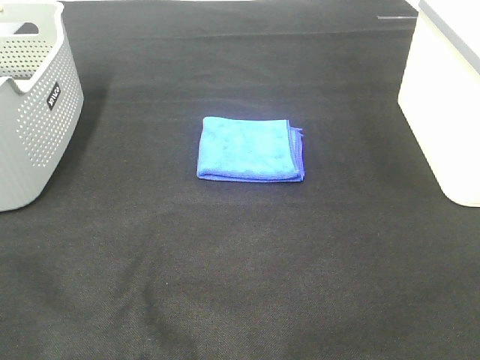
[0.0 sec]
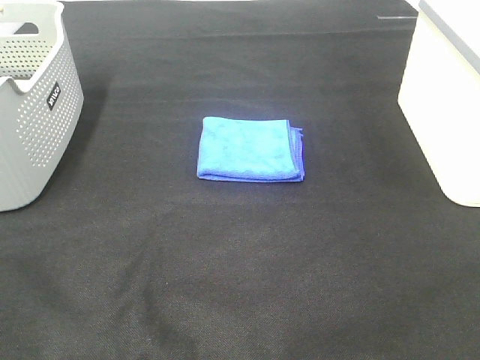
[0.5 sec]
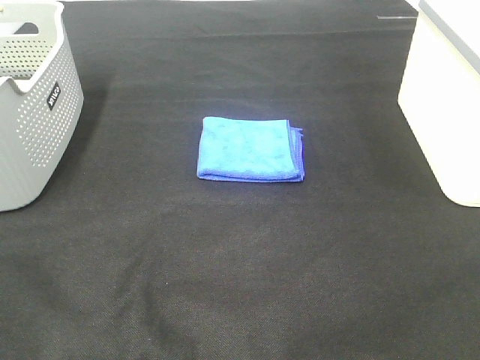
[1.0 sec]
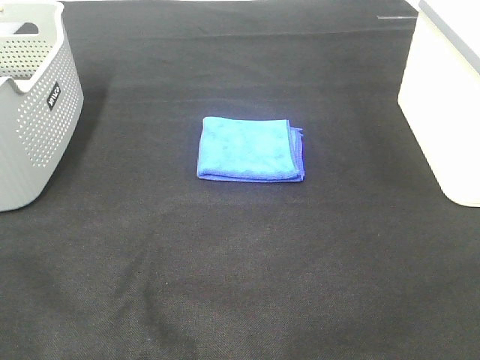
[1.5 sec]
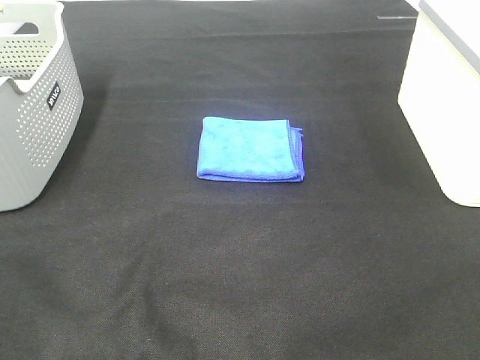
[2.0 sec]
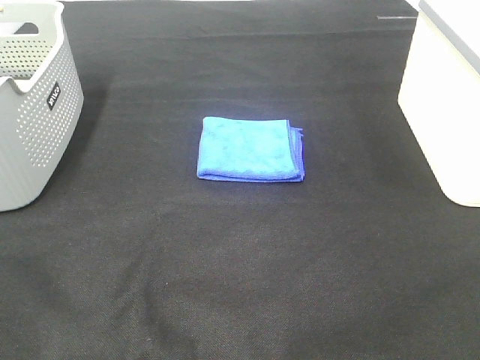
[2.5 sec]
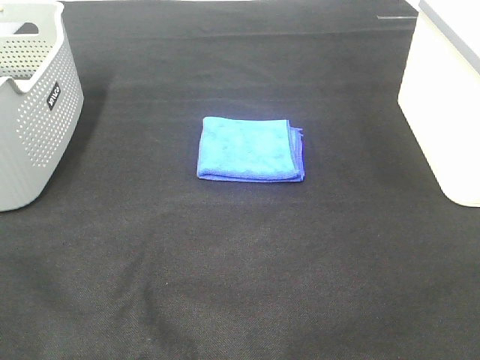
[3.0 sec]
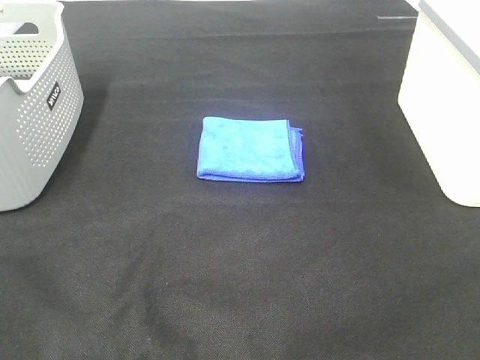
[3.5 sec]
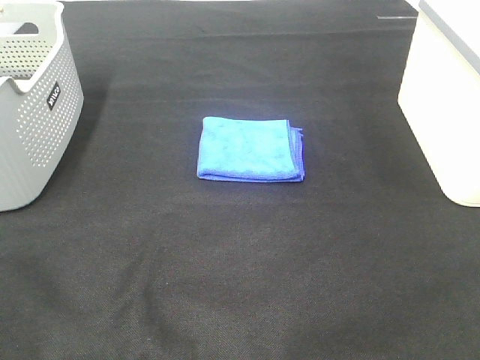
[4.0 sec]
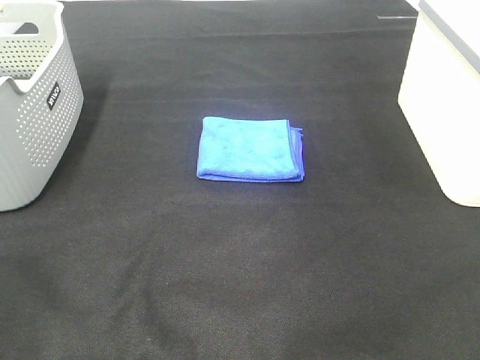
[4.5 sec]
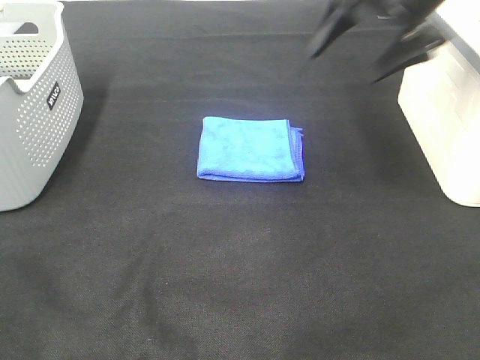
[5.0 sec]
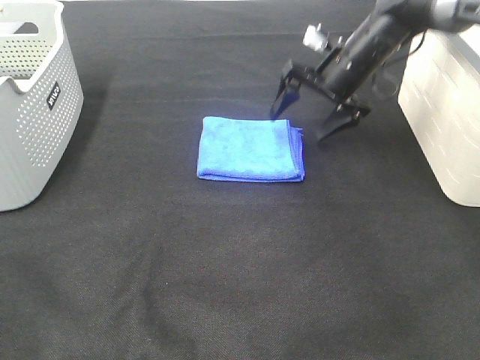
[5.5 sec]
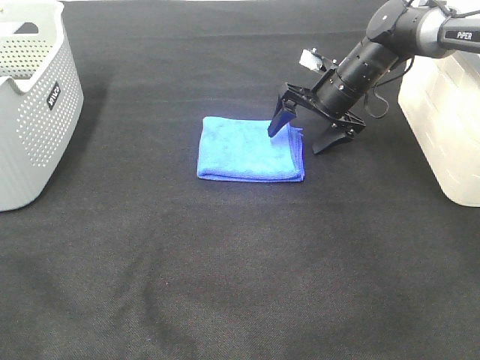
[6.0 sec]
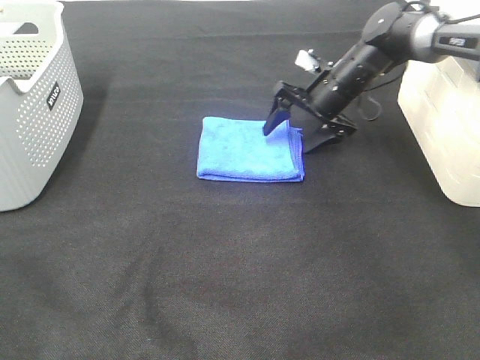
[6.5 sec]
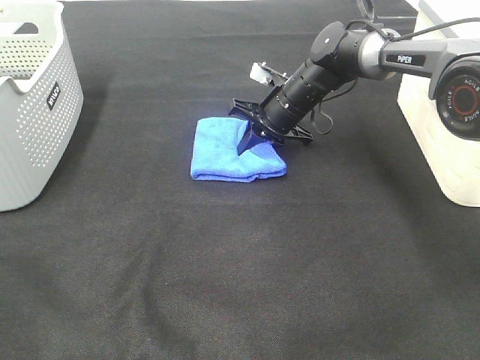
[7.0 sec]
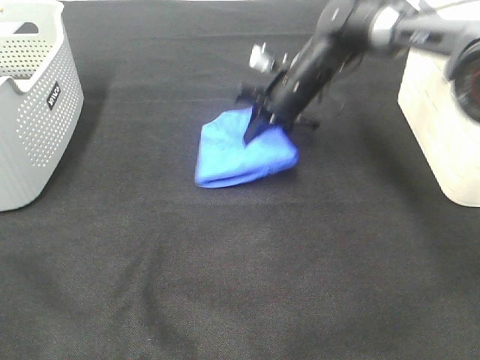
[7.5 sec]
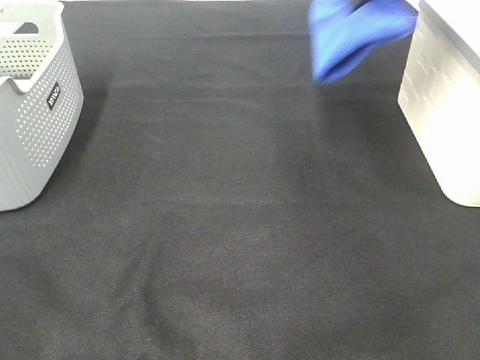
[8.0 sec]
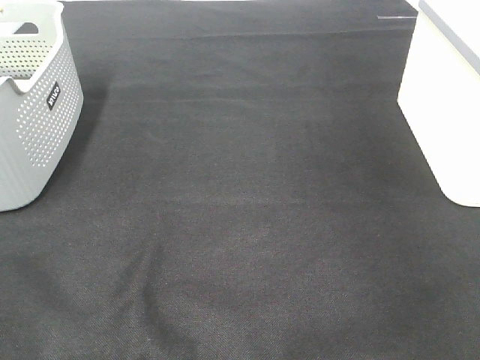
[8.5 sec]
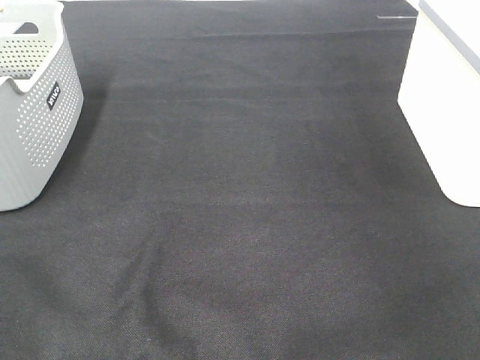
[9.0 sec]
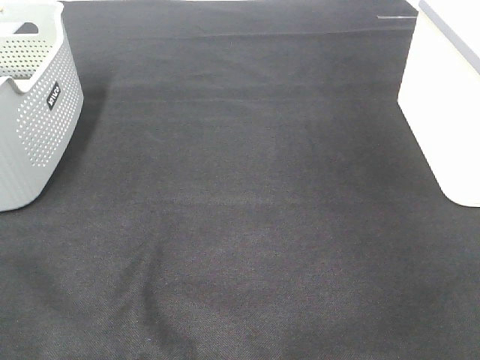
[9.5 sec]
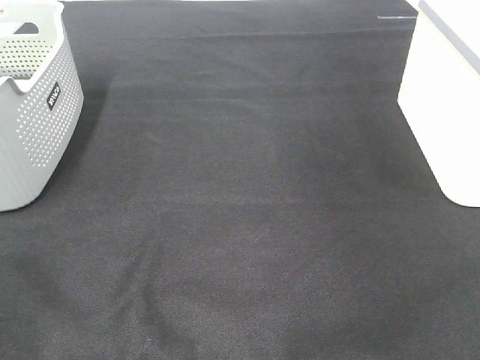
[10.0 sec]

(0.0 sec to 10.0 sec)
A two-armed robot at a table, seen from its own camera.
Step, 0.0 sec - 7.0 sec: Right hand: grab the folded blue towel.
Step, 7.5 sec - 9.0 sec: Right hand: place the blue towel in right basket.
0.0 sec - 2.0 sec: Neither gripper changes place.
4.0 sec - 6.0 sec: The right gripper moves forward and downward, about 50 cm.
6.0 sec - 8.0 sec: The right gripper is displaced upward by some 25 cm, and closes.
8.0 sec - 10.0 sec: The right gripper travels backward and to the right by about 25 cm, and opens.

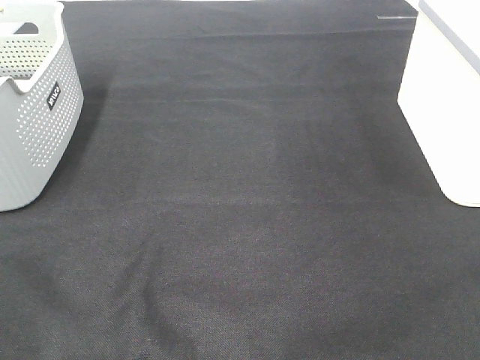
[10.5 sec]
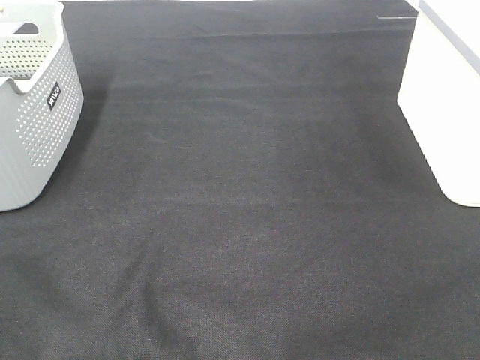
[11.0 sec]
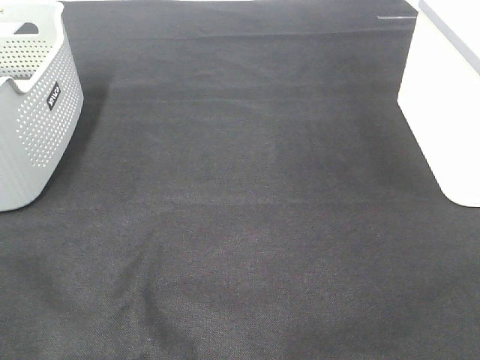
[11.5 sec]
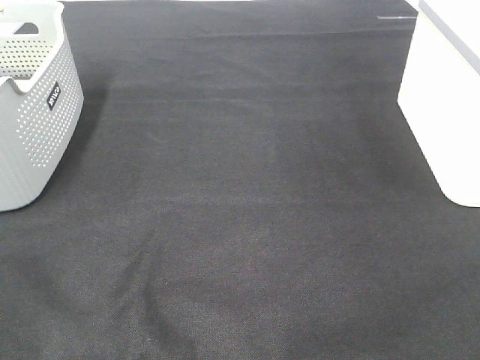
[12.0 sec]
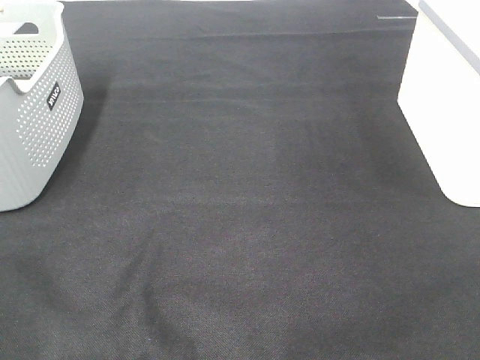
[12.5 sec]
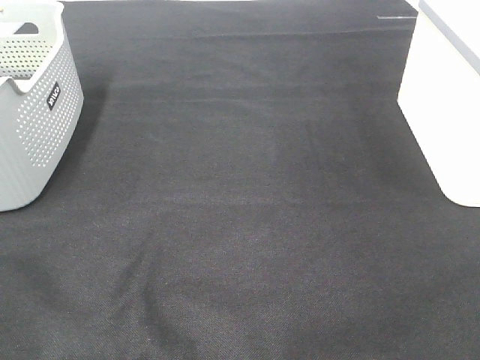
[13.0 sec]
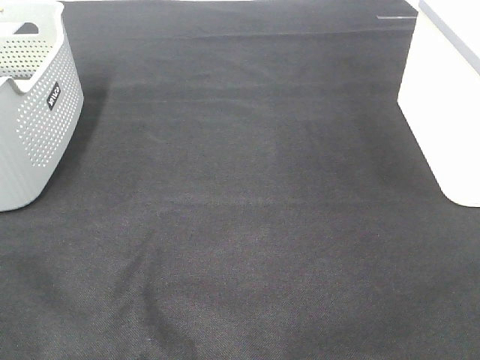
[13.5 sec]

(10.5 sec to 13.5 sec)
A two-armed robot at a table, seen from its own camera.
12.0 sec - 13.5 sec: The two grippers keep their place.

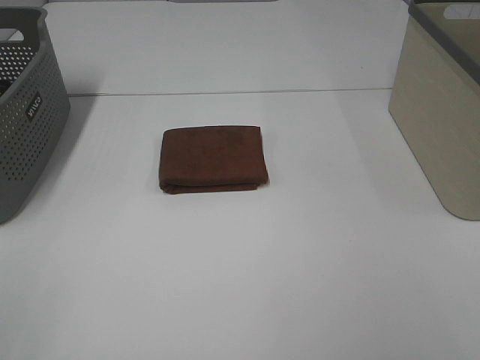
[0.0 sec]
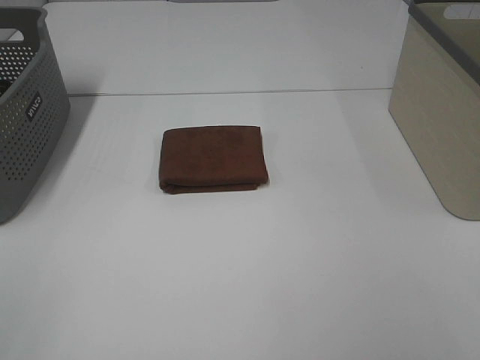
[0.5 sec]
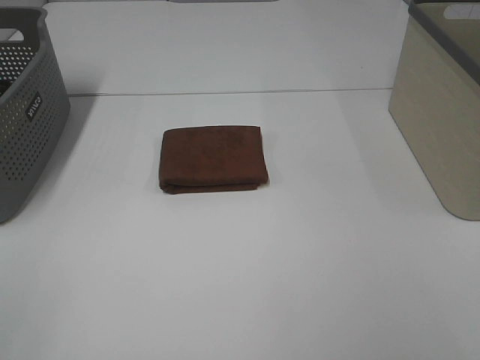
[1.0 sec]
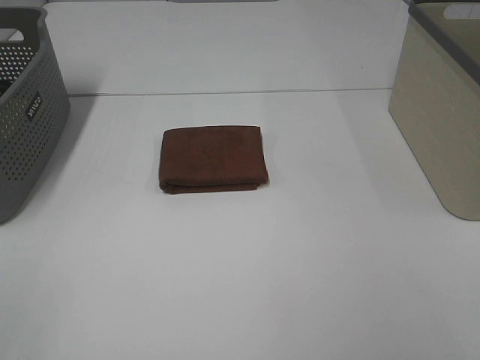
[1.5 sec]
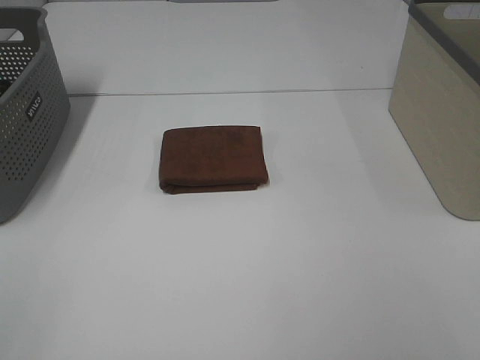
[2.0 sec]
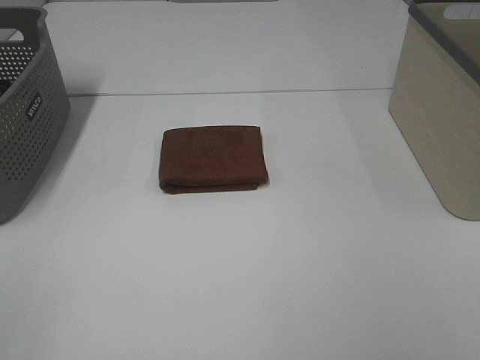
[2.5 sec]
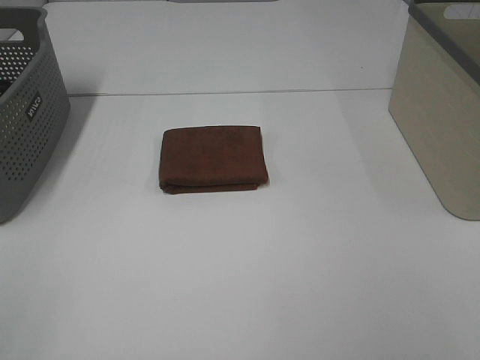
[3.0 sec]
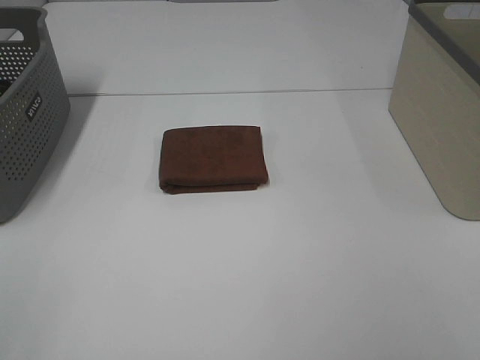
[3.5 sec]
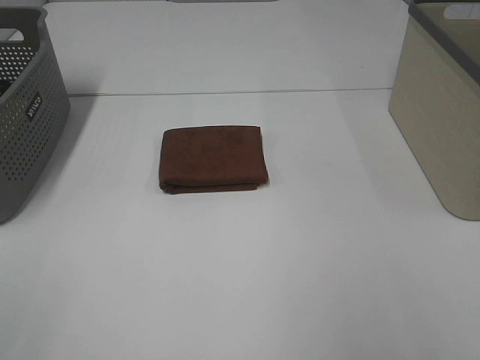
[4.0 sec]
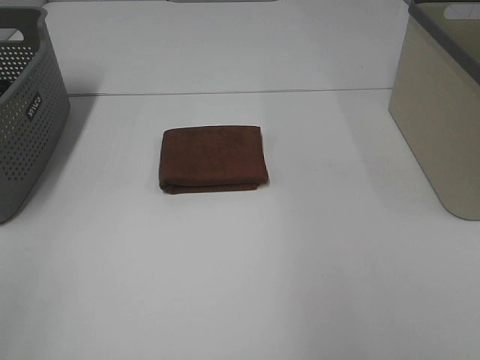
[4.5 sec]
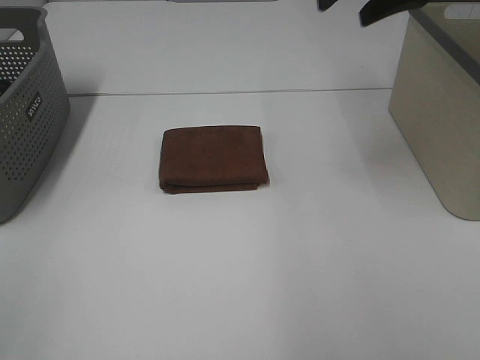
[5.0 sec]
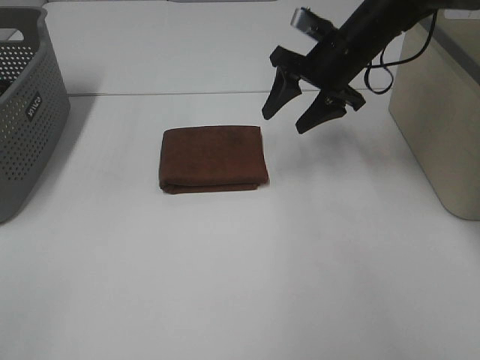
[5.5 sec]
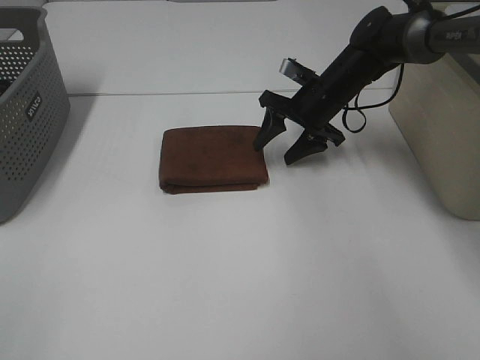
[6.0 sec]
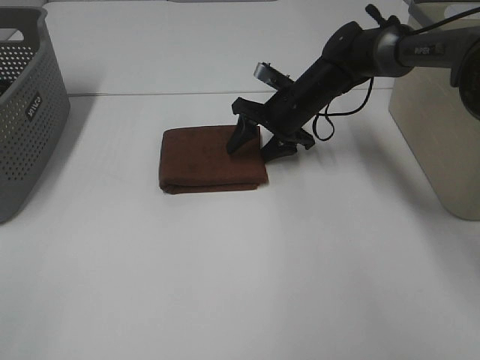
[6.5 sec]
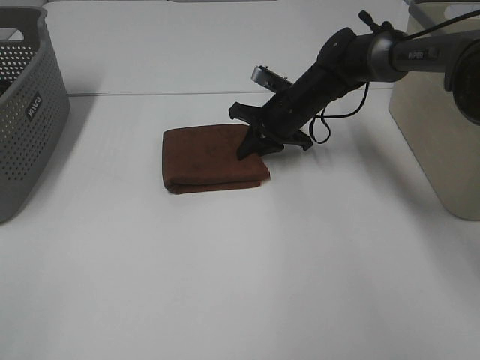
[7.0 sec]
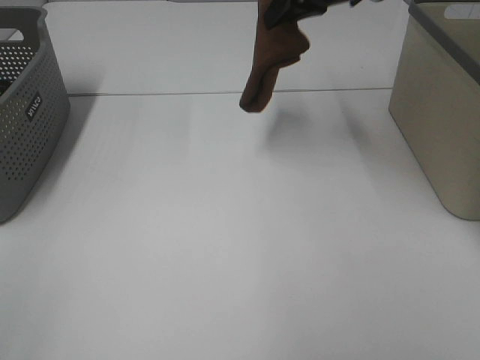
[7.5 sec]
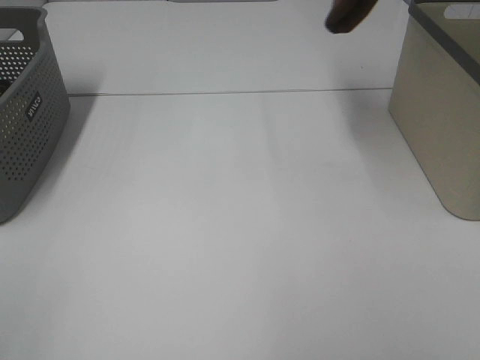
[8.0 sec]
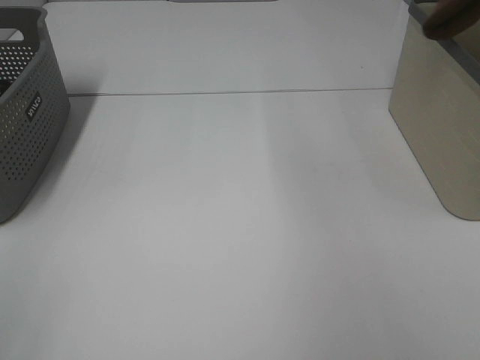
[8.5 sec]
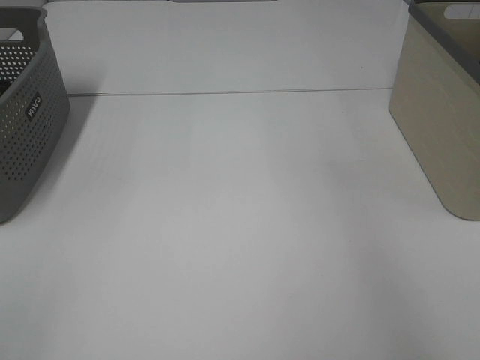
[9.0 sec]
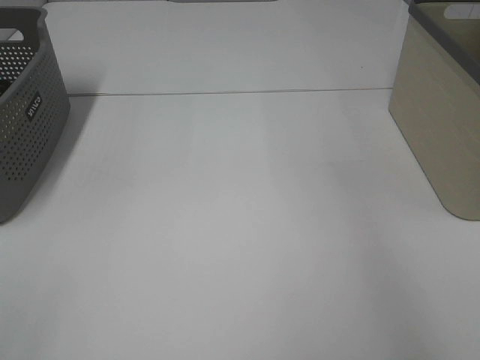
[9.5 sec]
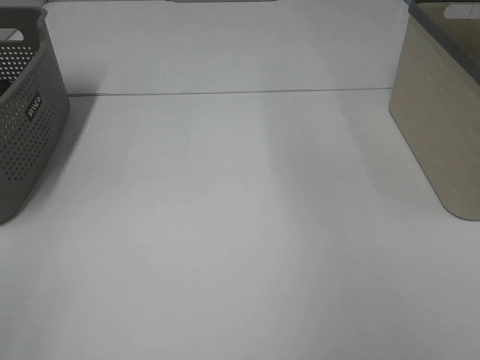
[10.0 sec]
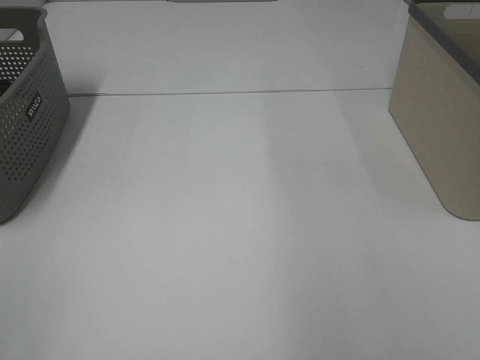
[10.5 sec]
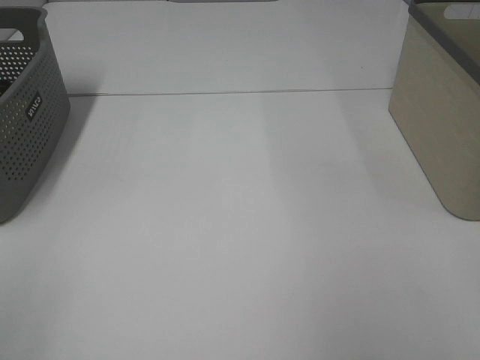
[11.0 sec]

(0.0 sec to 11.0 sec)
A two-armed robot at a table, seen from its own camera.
Step, 0.0 sec - 7.0 sec: Right hand: grab the folded brown towel.
Step, 7.5 sec - 9.0 sec: Right hand: place the brown towel in right basket.
0.0 sec - 3.5 sec: Both grippers stay about where they are.
3.5 sec - 5.5 sec: The right gripper travels forward by roughly 50 cm.
5.5 sec - 7.5 sec: The right gripper goes about 10 cm upward, and closes its fingers.
7.5 sec - 9.0 sec: The right gripper heads to the right, covering approximately 25 cm.

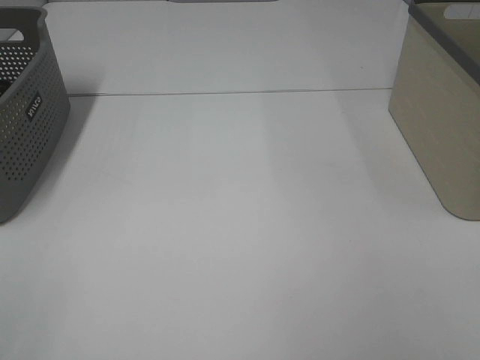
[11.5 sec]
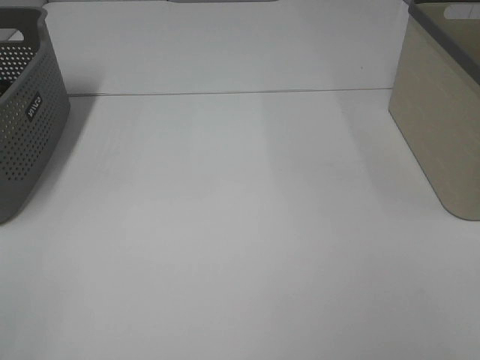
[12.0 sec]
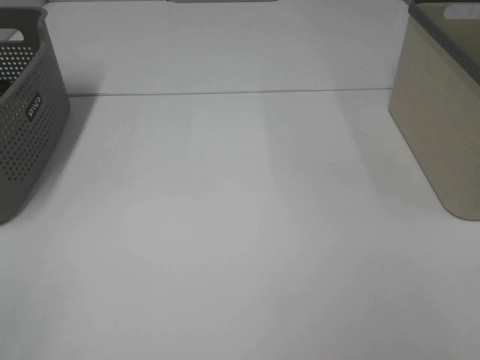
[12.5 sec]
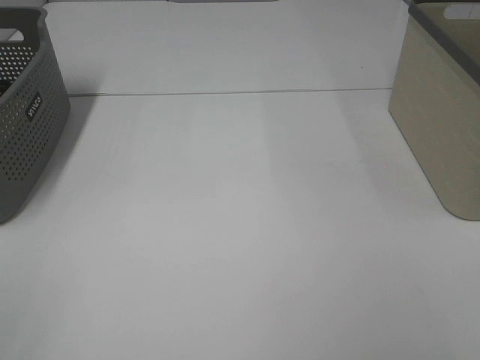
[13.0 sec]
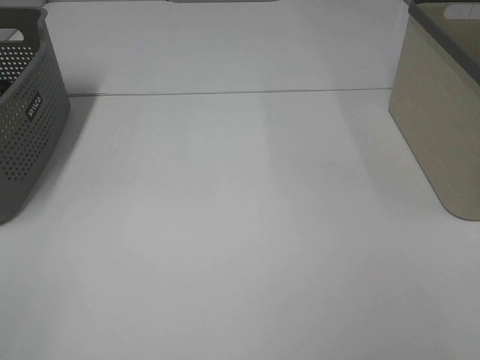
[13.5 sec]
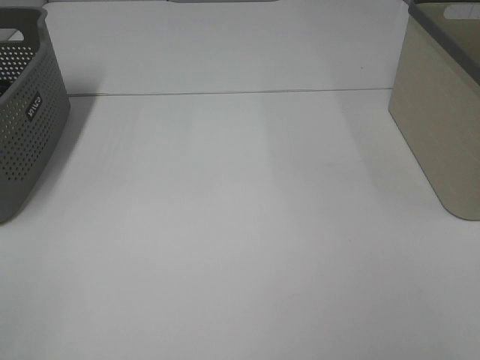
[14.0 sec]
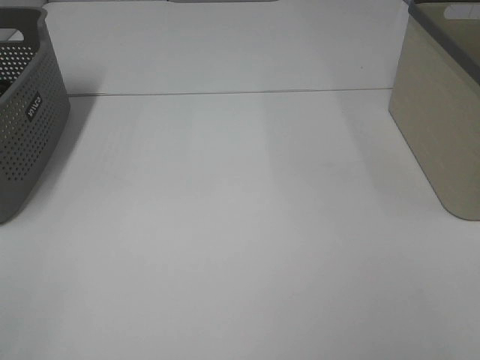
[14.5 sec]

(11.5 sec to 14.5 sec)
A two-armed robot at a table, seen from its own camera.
13.0 sec - 14.5 sec: Neither gripper changes place.
